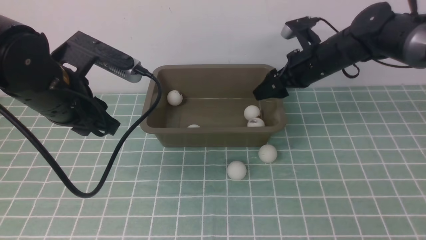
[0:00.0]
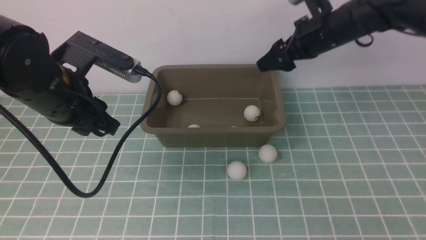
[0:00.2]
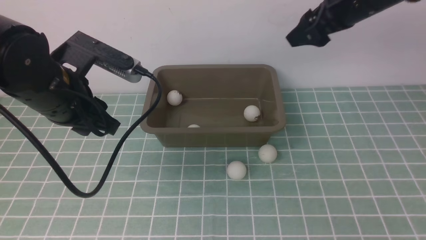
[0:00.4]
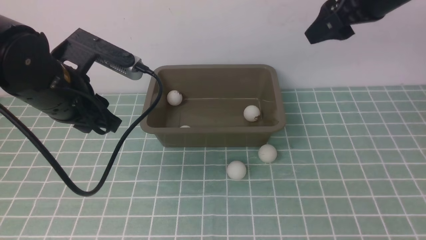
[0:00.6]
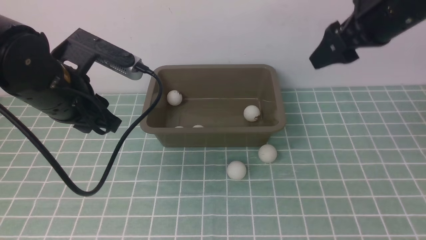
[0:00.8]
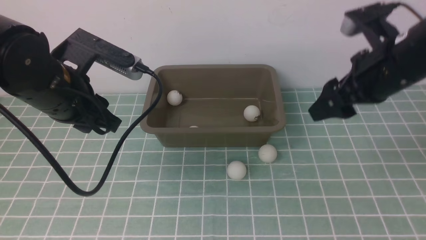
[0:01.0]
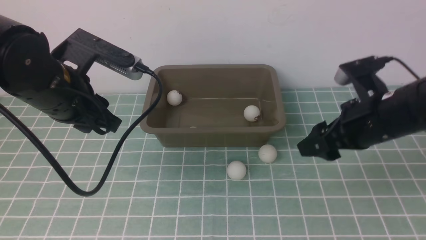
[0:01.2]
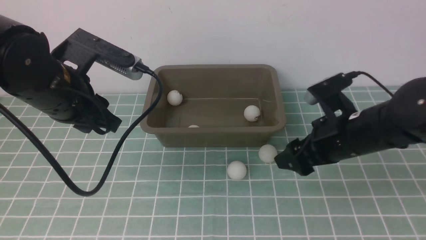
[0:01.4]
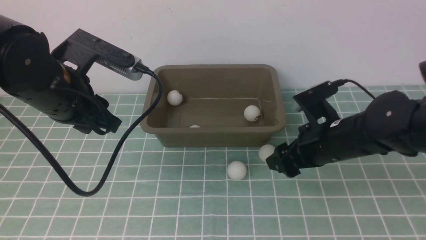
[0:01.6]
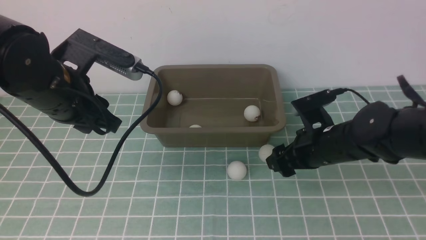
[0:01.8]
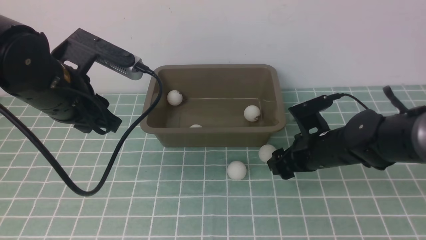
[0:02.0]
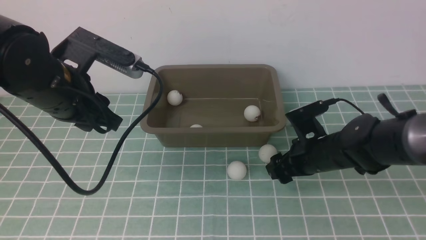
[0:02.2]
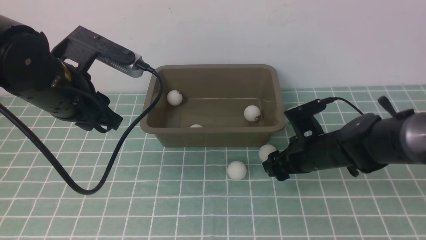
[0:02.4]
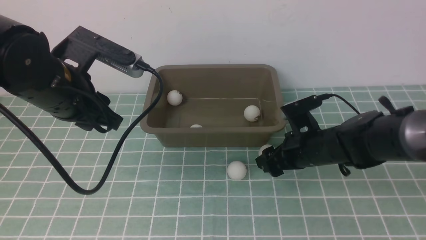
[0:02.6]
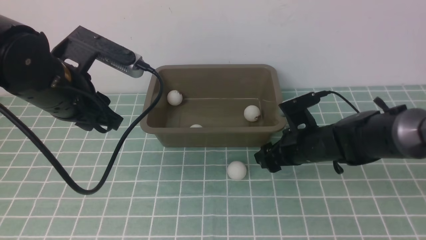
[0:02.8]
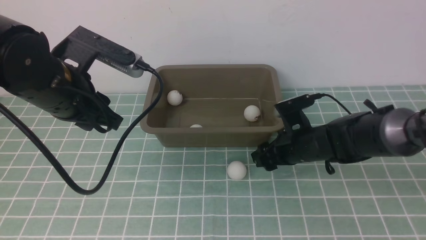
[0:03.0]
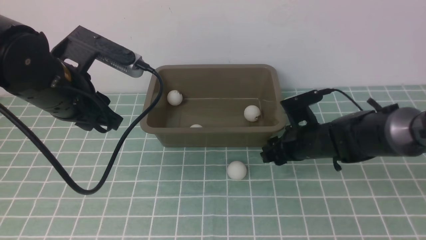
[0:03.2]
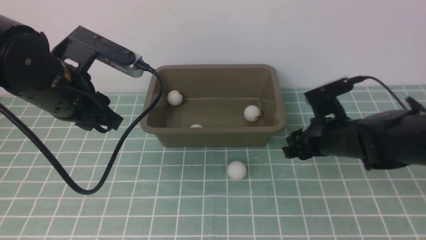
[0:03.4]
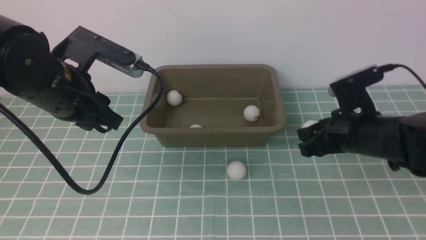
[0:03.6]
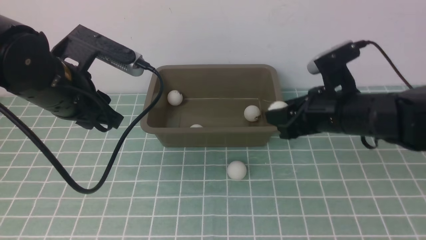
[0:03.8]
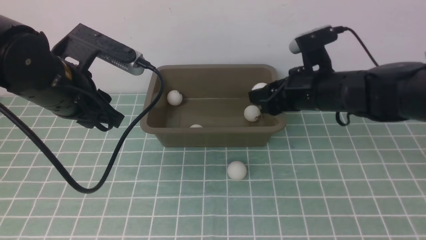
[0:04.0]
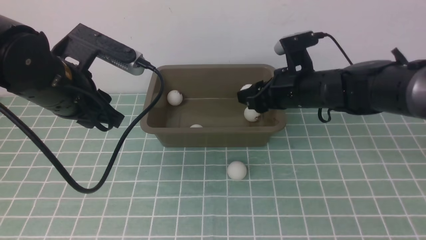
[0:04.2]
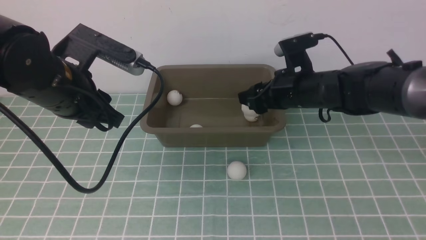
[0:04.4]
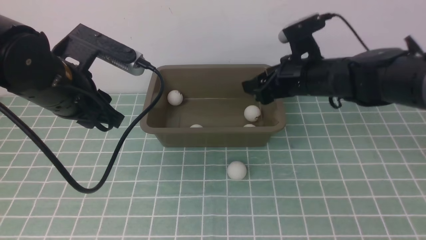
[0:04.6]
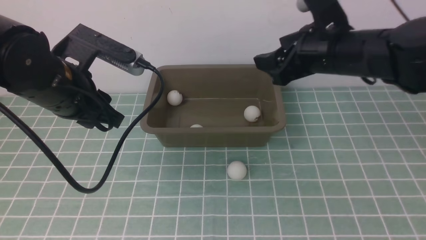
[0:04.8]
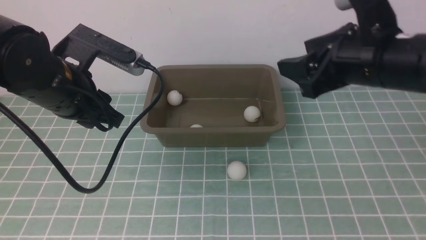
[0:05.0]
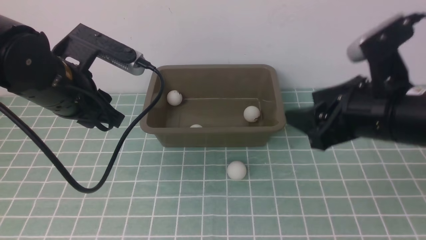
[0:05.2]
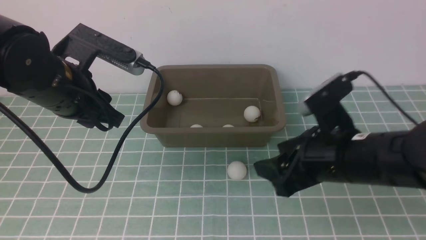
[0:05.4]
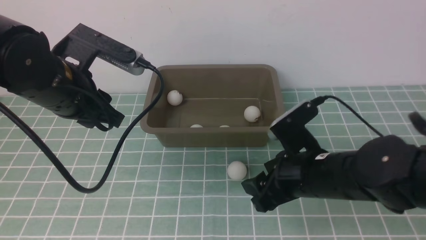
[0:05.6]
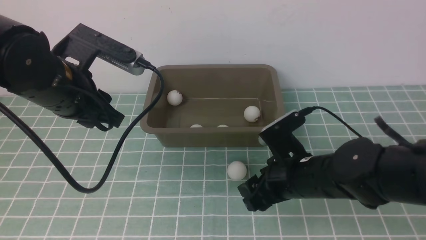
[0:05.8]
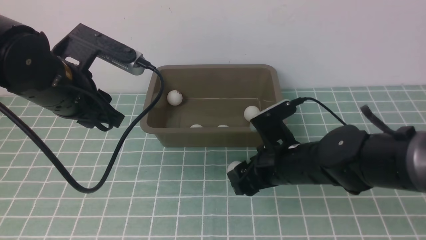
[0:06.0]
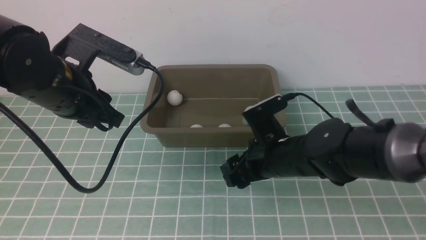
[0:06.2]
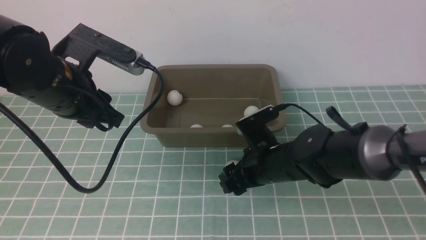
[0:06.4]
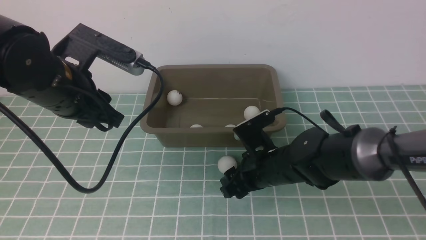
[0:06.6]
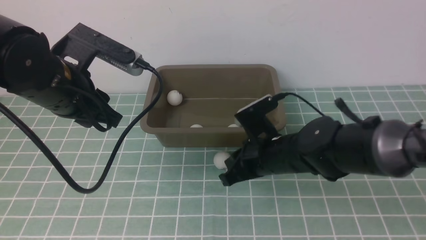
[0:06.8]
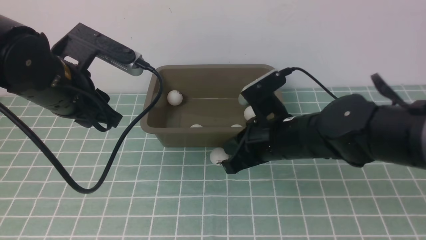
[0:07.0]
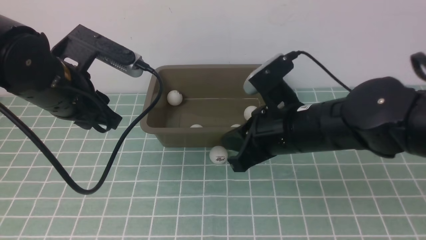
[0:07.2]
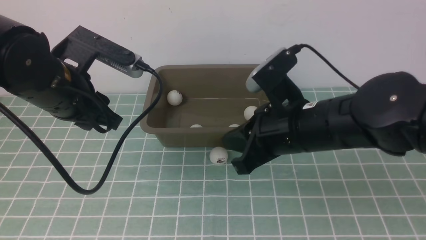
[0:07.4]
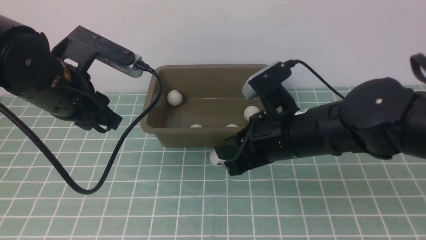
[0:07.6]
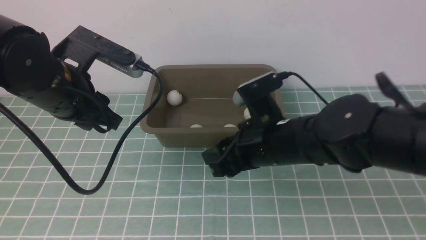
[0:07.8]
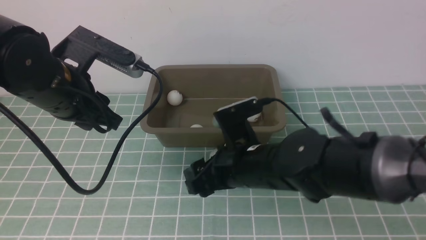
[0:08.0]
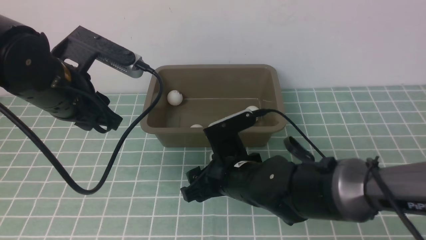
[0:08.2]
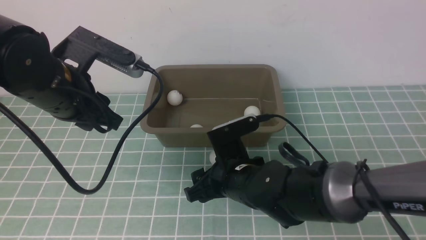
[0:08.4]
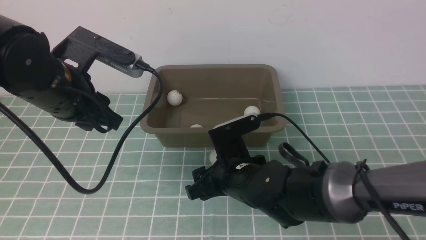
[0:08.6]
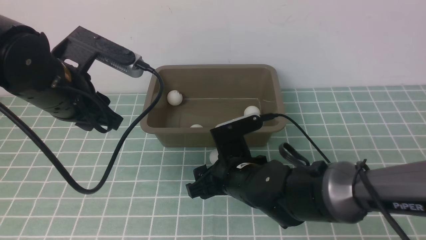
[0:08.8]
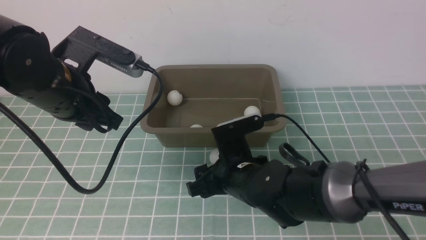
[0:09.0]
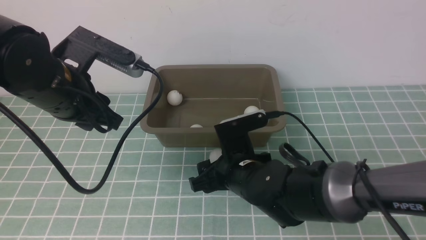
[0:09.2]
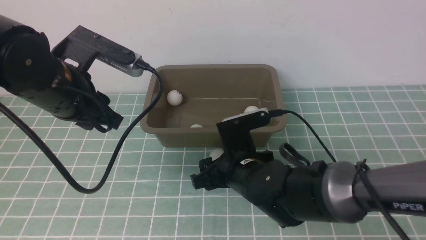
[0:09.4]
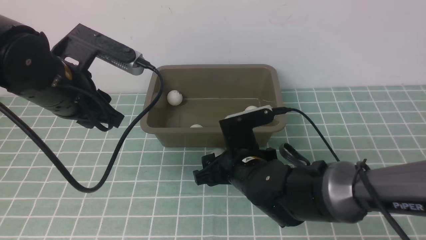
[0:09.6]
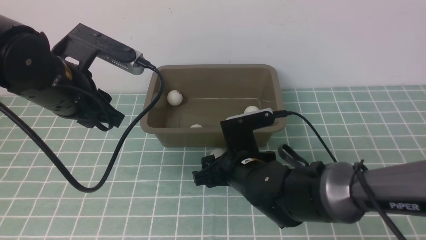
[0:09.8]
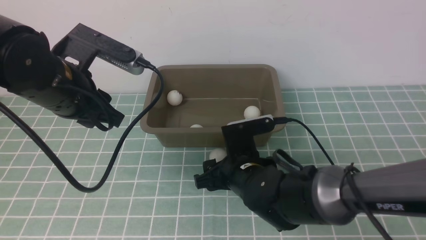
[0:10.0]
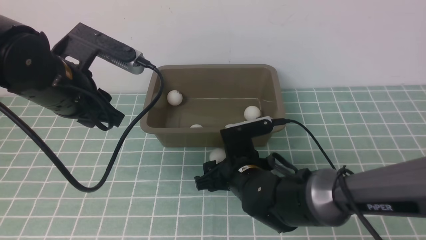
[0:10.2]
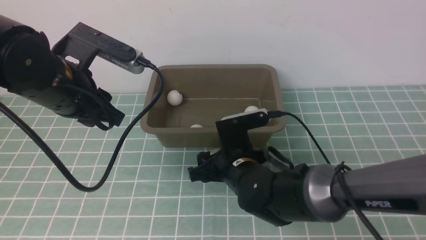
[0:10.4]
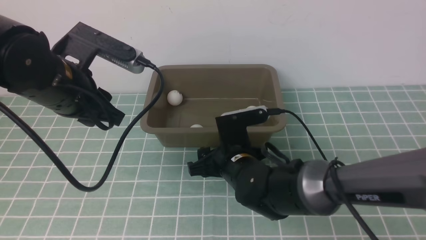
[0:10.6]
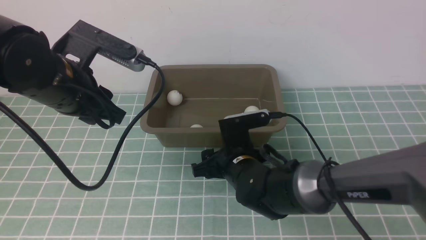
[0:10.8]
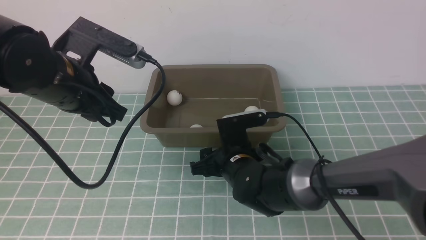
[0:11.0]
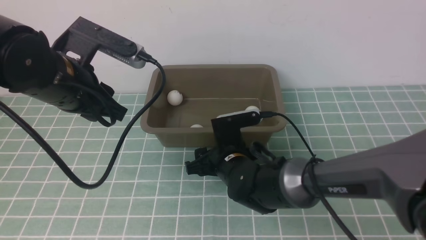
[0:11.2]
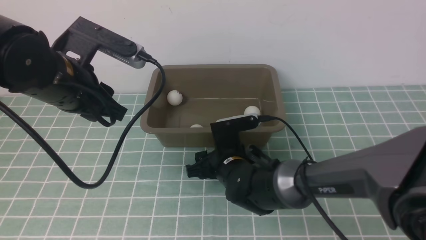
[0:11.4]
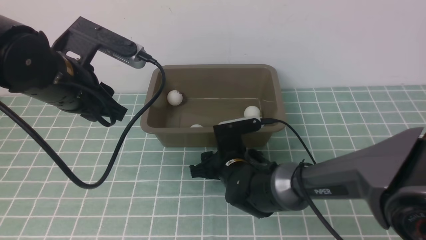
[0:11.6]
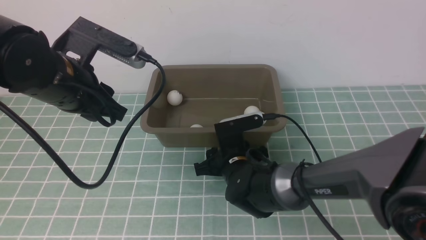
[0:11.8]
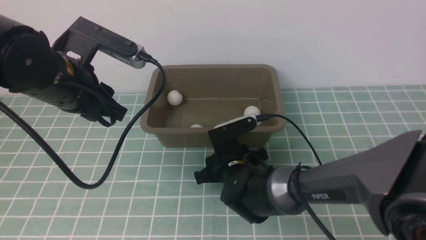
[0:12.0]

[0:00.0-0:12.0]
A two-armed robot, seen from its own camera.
Step, 0:00.2 to 0:03.6: use the right arm to clamp the table tennis ball closest to it.
Step, 0:03.8 to 0:04.6: use the right arm to put the table tennis ball into the box.
0:00.0 to 0:01.6: The right gripper goes roughly 15 cm backward, and travels upward and back again, some 15 cm each way.
0:01.6 to 0:03.0: The right gripper shifts approximately 10 cm downward and forward.
0:03.0 to 0:04.4: The right gripper travels upward by some 10 cm.
0:04.4 to 0:06.0: The right gripper moves backward, downward and to the left, roughly 15 cm.
0:06.0 to 0:07.6: The right gripper goes about 5 cm upward, and closes, then reopens.
0:07.6 to 0:09.0: The right gripper shifts about 10 cm downward.
0:09.0 to 0:10.4: The grippers make only small movements.

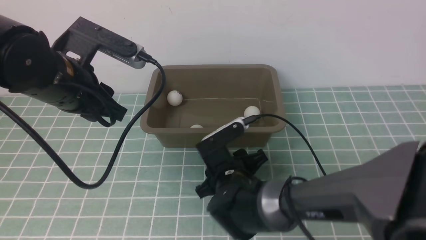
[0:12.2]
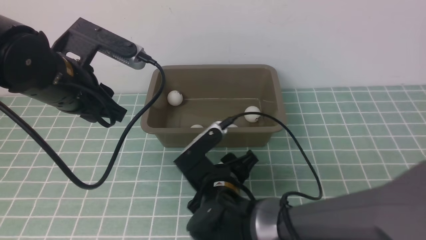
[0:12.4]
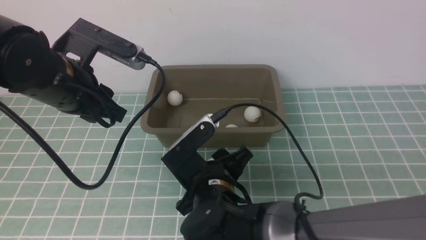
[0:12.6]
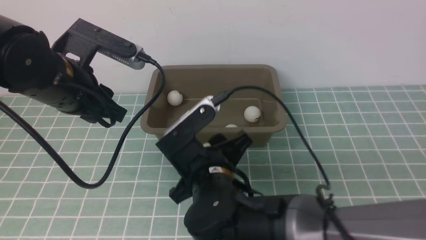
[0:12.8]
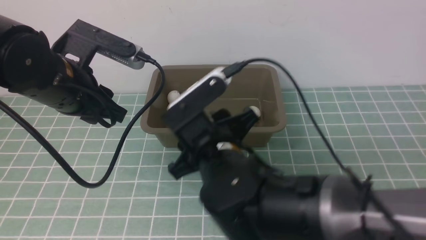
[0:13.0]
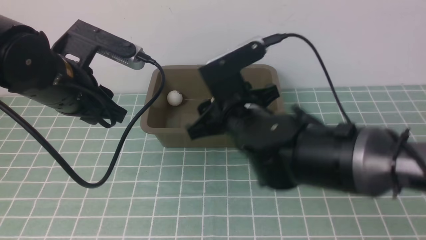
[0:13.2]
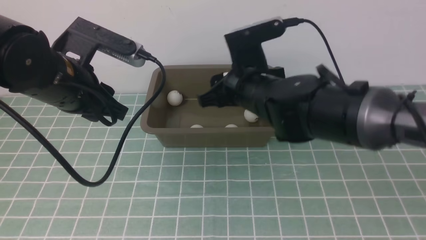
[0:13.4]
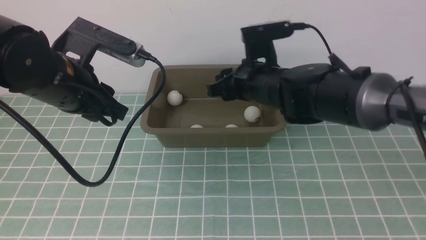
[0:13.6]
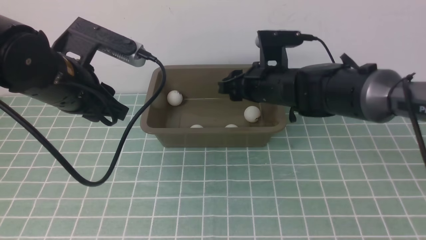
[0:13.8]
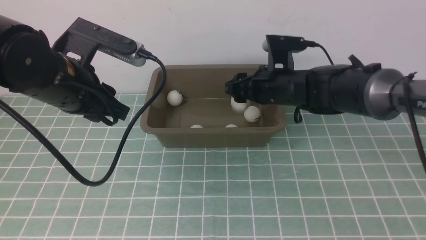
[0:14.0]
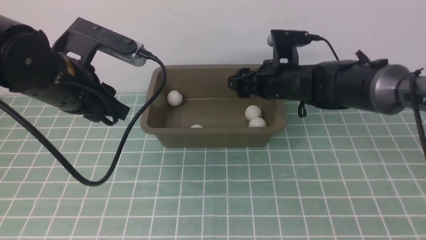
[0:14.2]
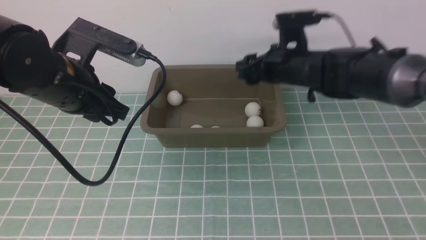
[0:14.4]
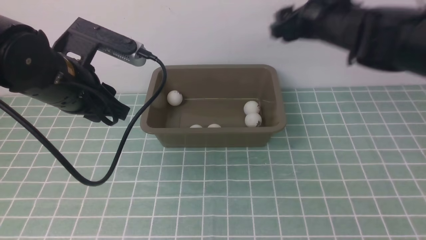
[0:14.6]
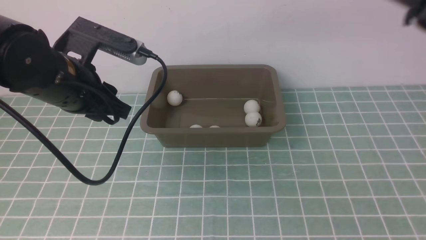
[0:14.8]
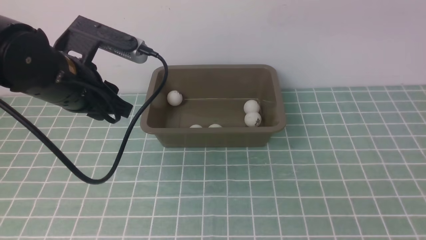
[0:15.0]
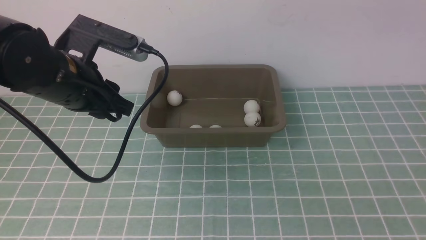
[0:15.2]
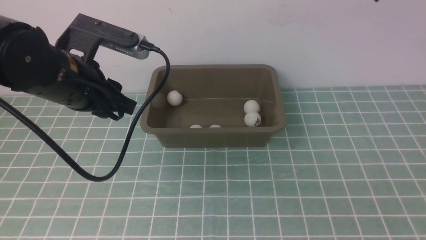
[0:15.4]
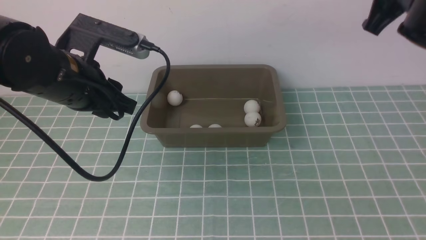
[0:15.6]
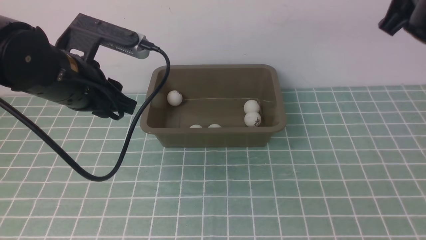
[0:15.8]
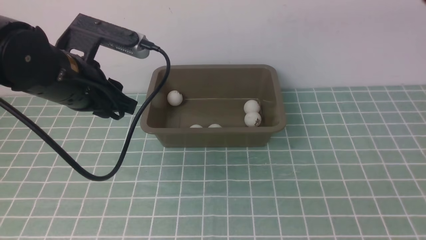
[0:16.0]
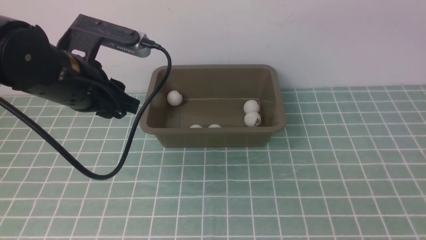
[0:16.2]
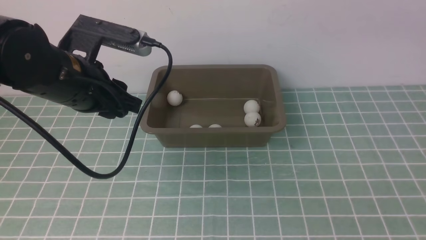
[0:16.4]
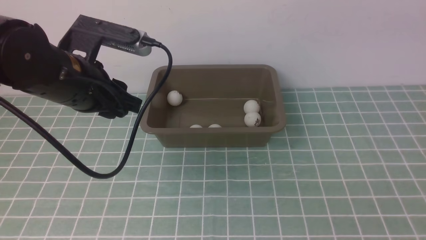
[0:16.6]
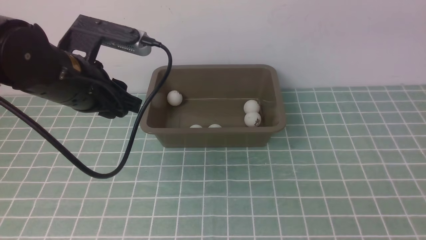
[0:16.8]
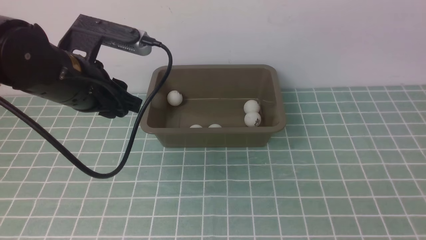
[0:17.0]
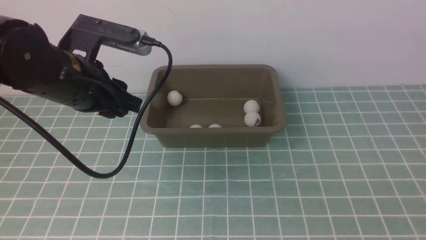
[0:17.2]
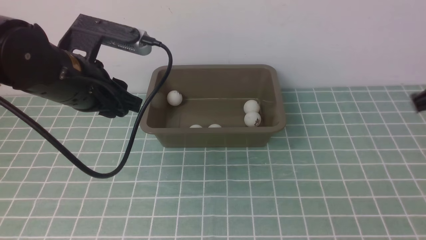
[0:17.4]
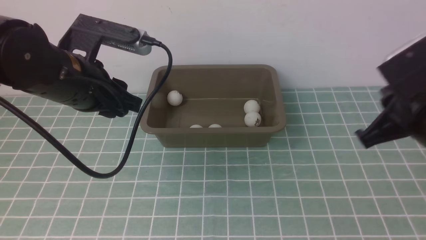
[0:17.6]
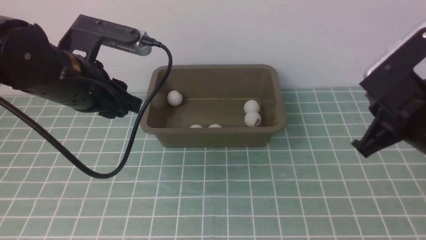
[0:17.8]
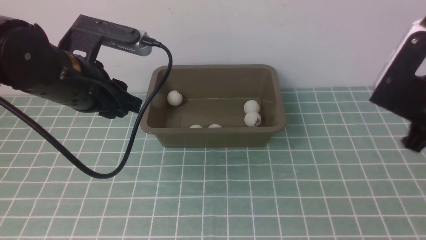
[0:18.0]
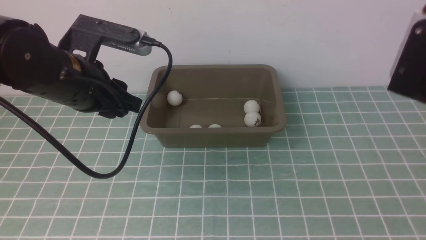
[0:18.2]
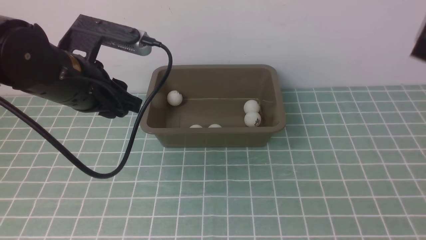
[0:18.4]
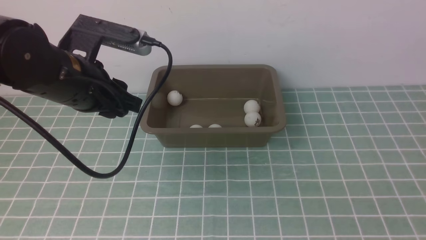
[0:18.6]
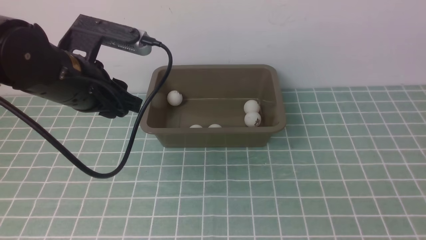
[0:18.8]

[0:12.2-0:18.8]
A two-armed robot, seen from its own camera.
Step, 0:12.4 to 0:14.2: use the right arm to put the table tennis ball into the box.
0:12.2 to 0:13.8: The right gripper moves forward, upward and to the right, roughly 20 cm.
0:13.8 to 0:15.4: The right gripper moves upward, to the right and backward, roughly 25 cm.
